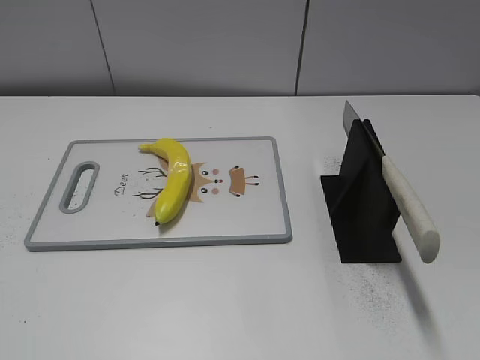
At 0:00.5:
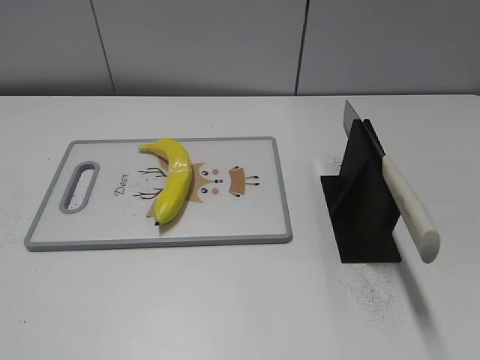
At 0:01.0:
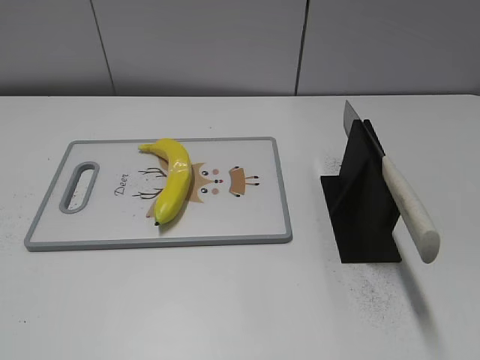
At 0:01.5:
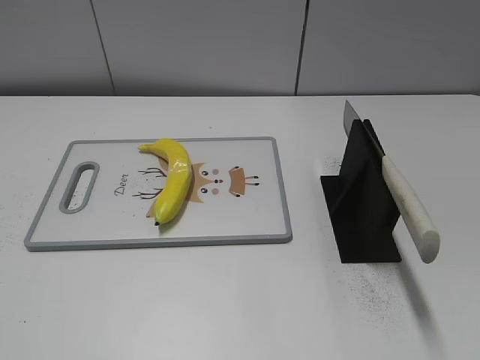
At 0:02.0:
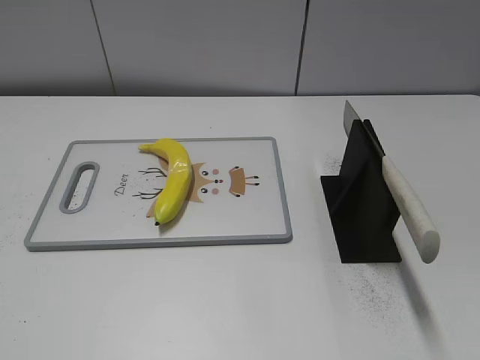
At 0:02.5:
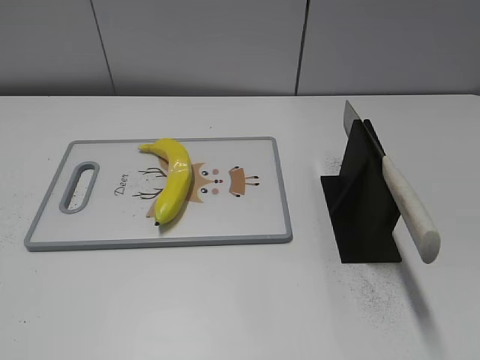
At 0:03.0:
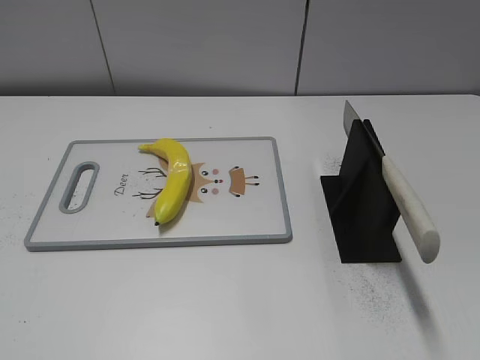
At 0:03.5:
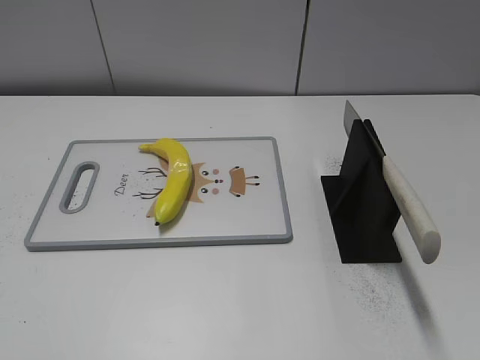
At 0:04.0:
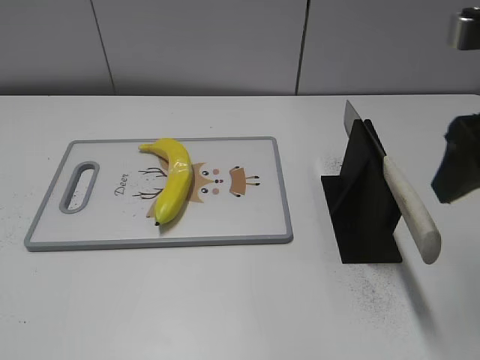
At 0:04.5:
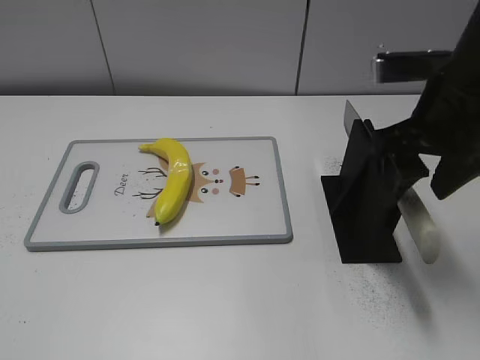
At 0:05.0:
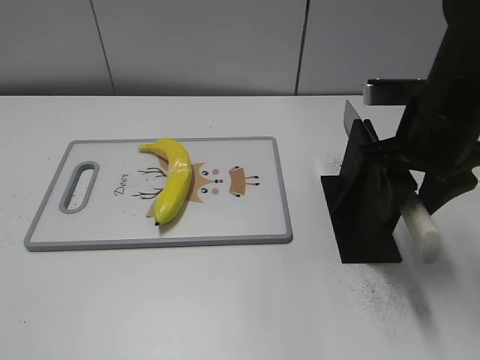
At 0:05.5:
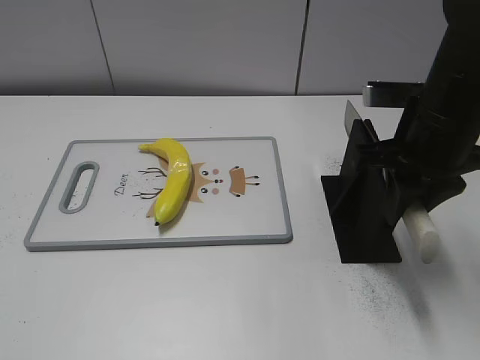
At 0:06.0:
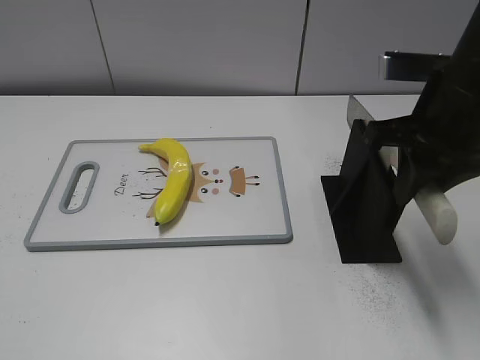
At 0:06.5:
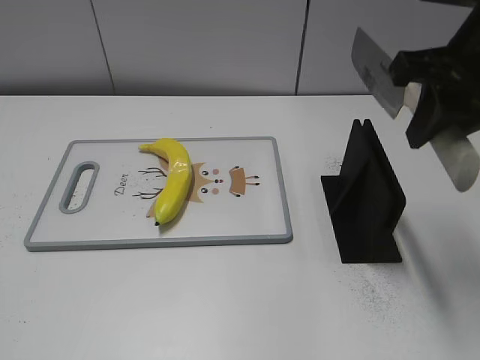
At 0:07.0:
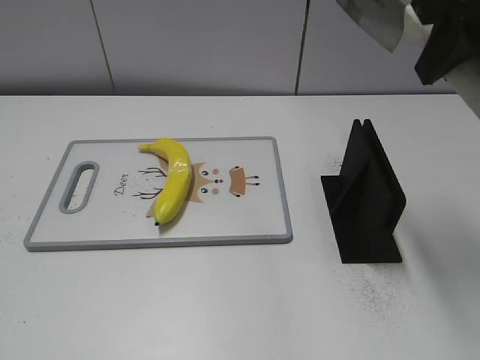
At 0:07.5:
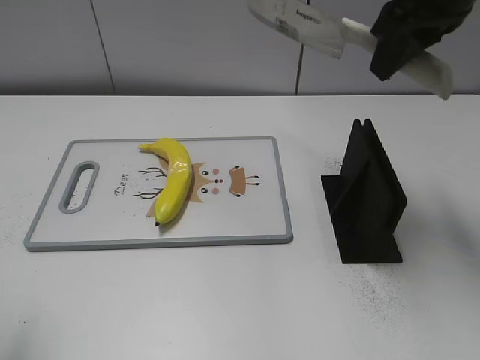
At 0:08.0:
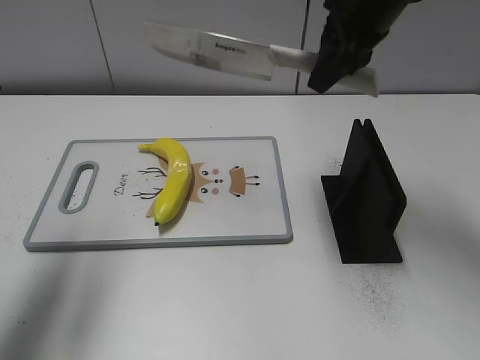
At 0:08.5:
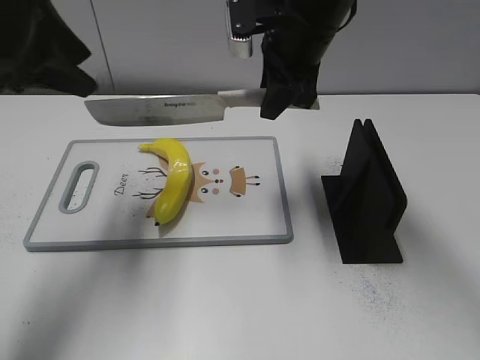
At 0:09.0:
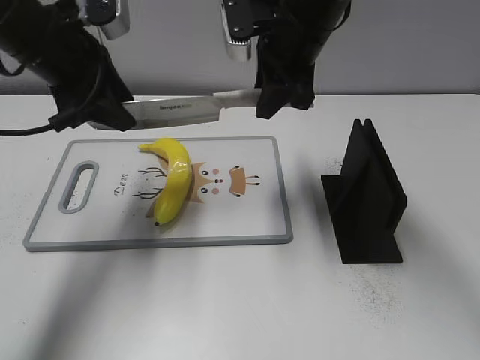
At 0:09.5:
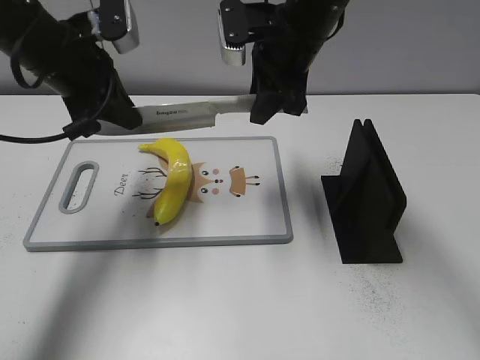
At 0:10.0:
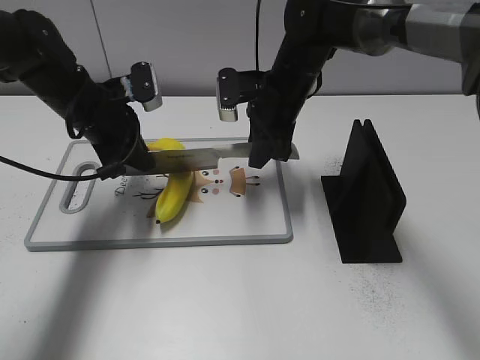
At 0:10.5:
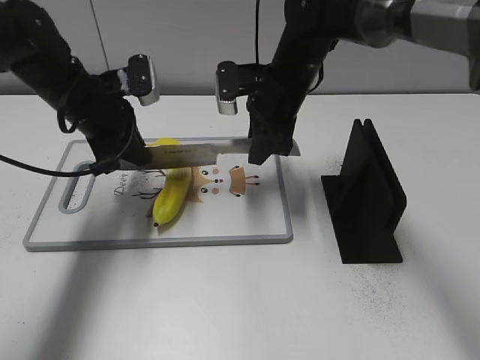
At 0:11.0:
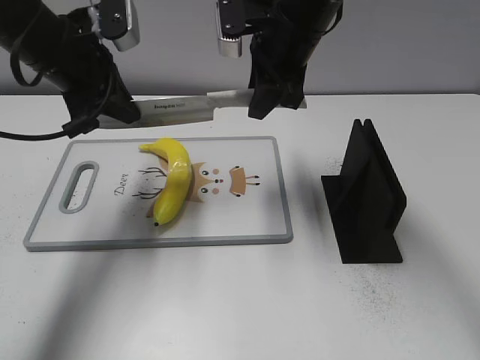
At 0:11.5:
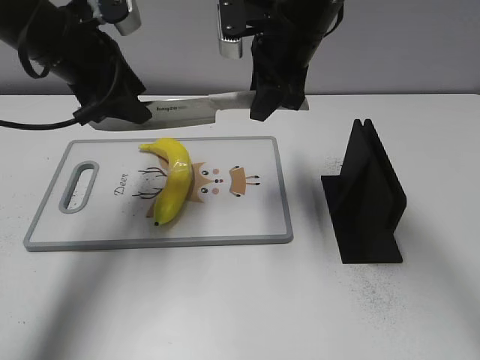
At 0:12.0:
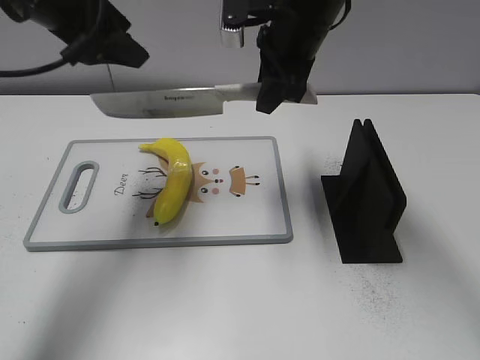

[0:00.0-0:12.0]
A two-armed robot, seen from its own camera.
Task of the whole recording: cut plastic banana.
Step, 0:00.0 to 0:07.0: Grab the knife handle with your right hand.
Step, 0:07.5 to 0:11.5: Lift the knife with your right hand.
0:02.0 to 0:04.0: The right gripper goes some 25 cm forward.
0:04.0 to 0:06.0: The right gripper heads forward, covering some 5 cm, and closes up.
0:06.0 to 0:08.0: The right gripper moves forward and to the left, roughly 10 cm, while the left gripper shifts approximately 25 cm forward.
0:08.0 to 0:10.0: The left gripper travels downward, forward and to the right by roughly 25 cm, and closes its fingers, while the right gripper is displaced downward and to the left by roughly 15 cm.
0:10.0 to 0:12.0: Both grippers move upward, approximately 15 cm. The left gripper opens.

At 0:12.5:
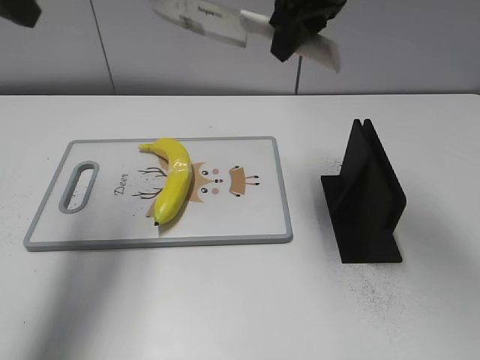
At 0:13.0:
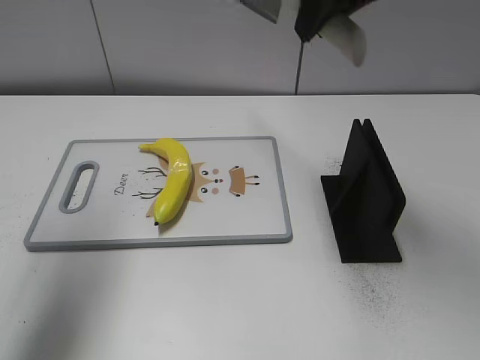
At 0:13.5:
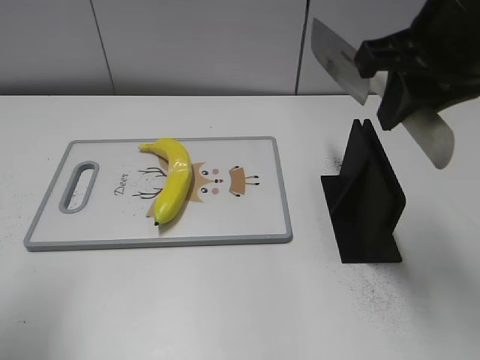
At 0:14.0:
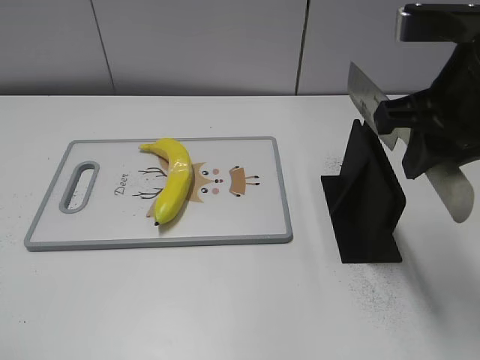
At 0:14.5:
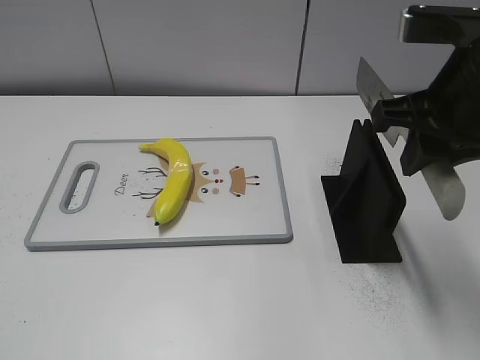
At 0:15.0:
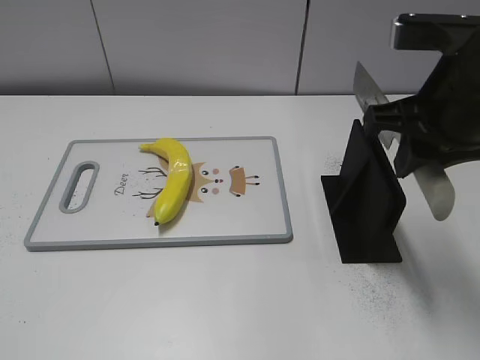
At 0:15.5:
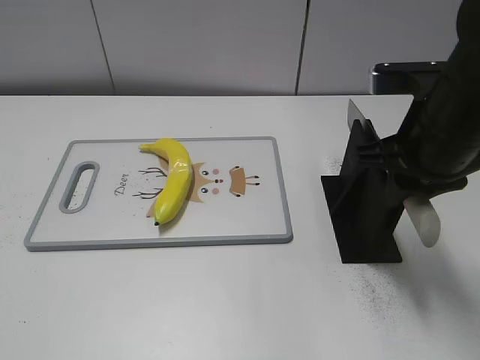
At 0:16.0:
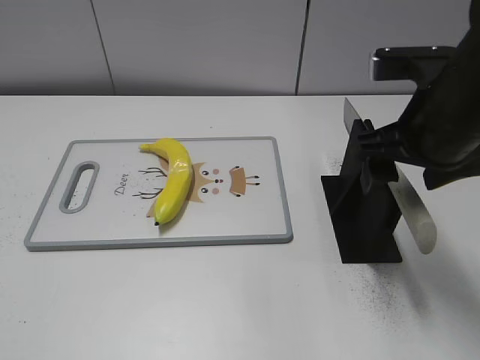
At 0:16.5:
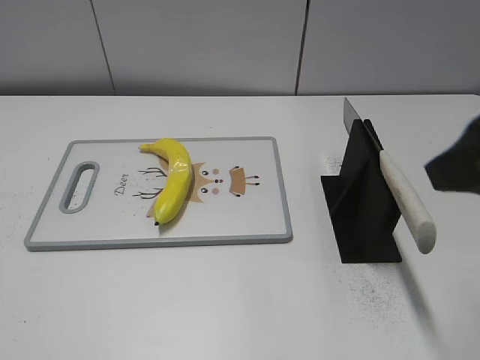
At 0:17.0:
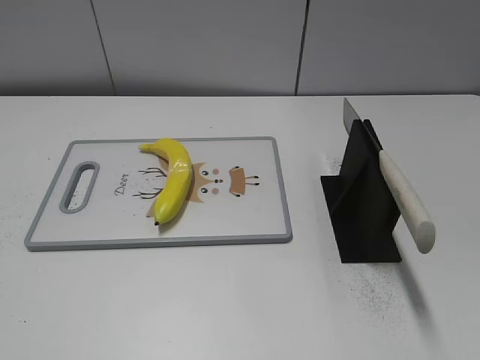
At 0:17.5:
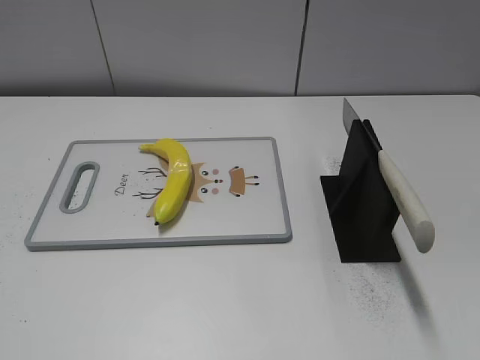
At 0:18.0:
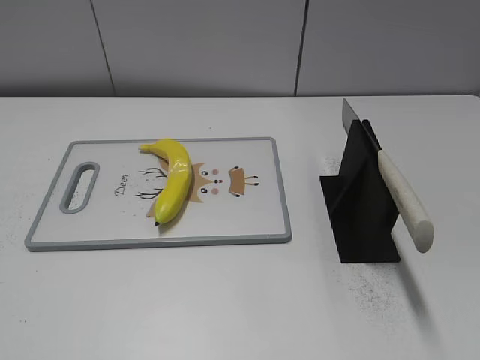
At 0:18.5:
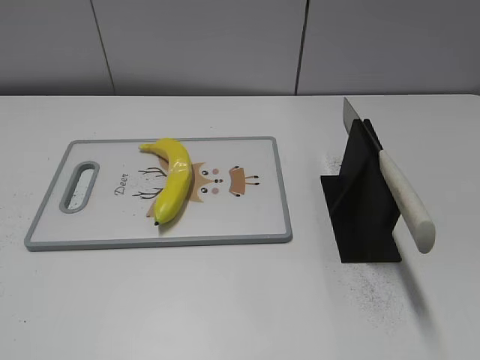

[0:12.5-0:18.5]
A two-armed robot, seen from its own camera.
Task of the whole recording: cut plastic banana.
Step, 0:13.5 to 0:14.0: Lift the knife with your right hand.
Step, 0:14.5 to 0:18.5: Place the knife on the storage rack with your right hand.
0:12.5 to 0:14.5: The left gripper is displaced backward by roughly 30 cm, while the right gripper shifts some 15 cm backward and to the right.
0:14.5 to 0:16.5: The right gripper heads backward, covering roughly 10 cm, and opens its fingers.
0:16.5 to 0:18.5: The right gripper travels backward and to the right by about 20 cm.

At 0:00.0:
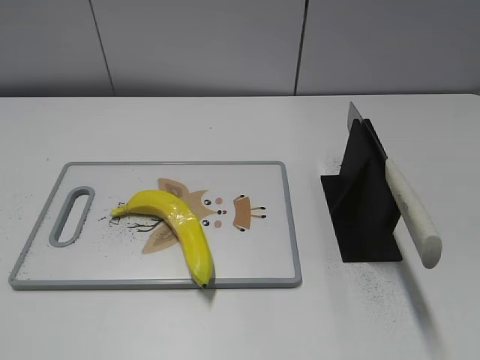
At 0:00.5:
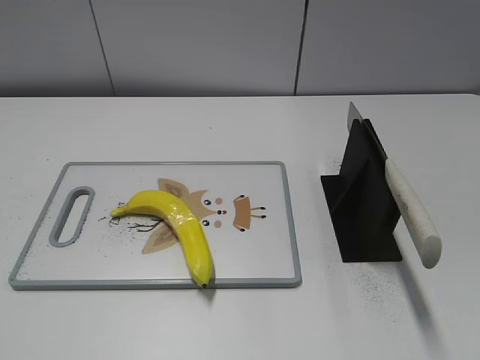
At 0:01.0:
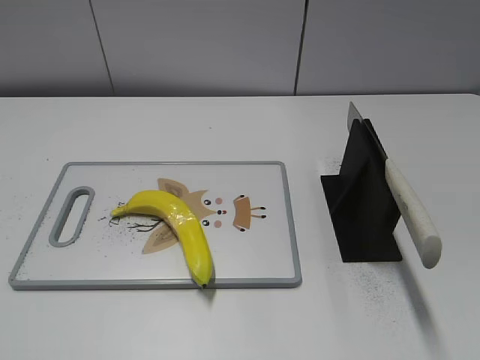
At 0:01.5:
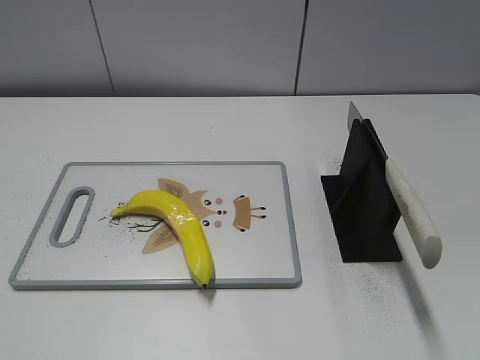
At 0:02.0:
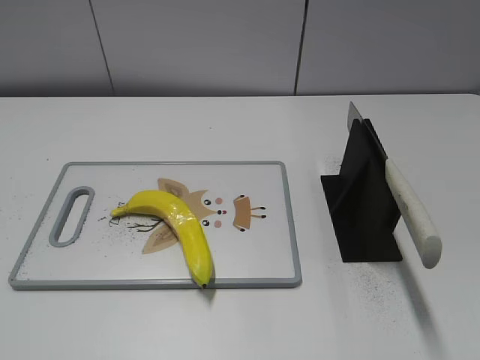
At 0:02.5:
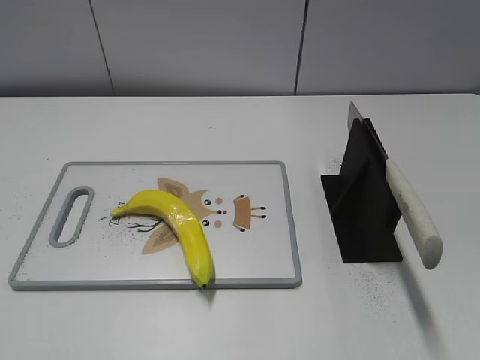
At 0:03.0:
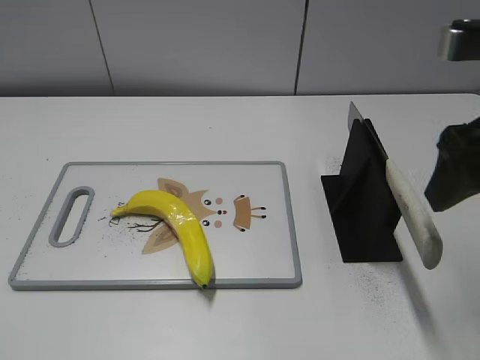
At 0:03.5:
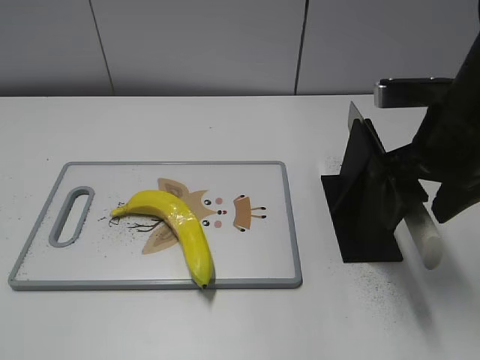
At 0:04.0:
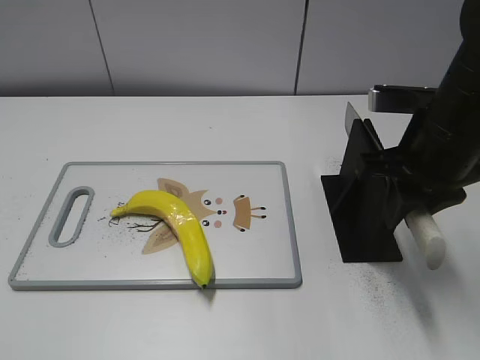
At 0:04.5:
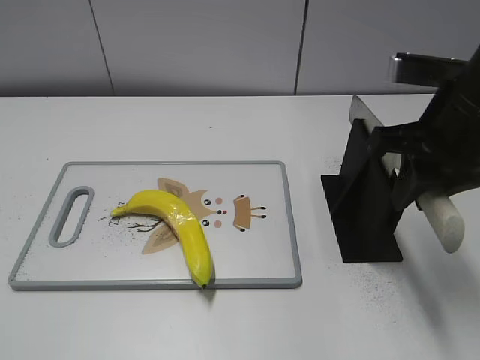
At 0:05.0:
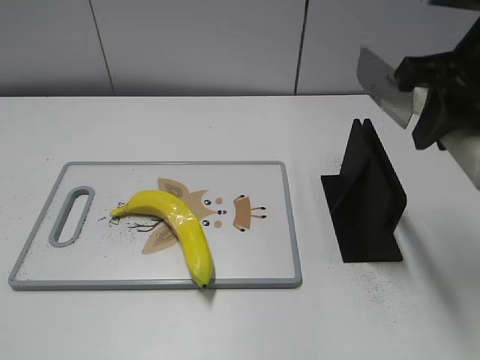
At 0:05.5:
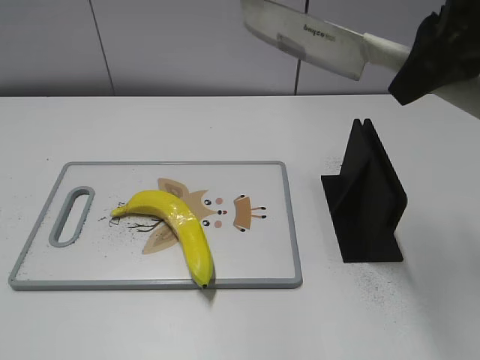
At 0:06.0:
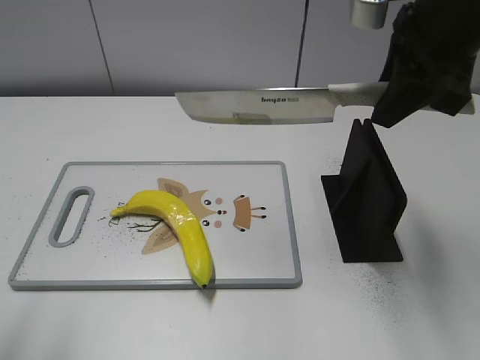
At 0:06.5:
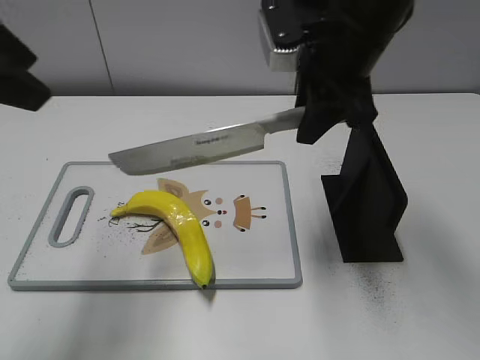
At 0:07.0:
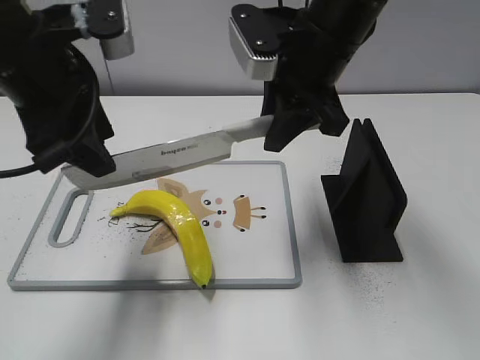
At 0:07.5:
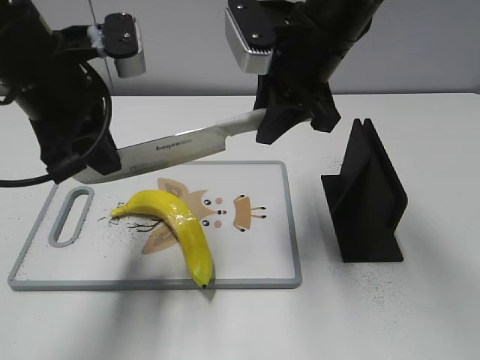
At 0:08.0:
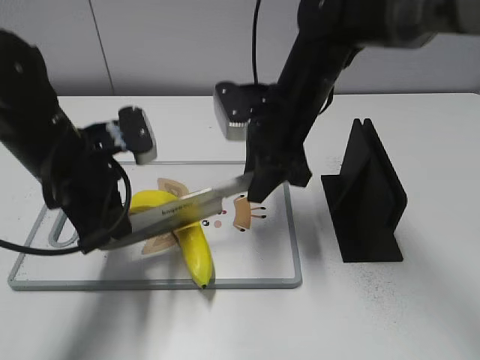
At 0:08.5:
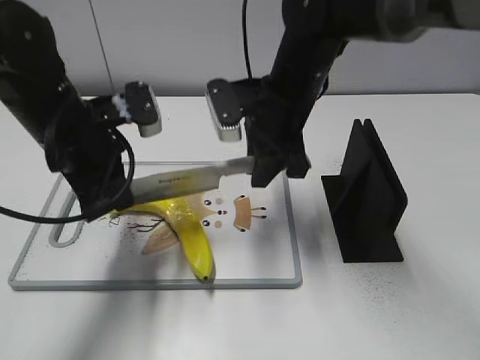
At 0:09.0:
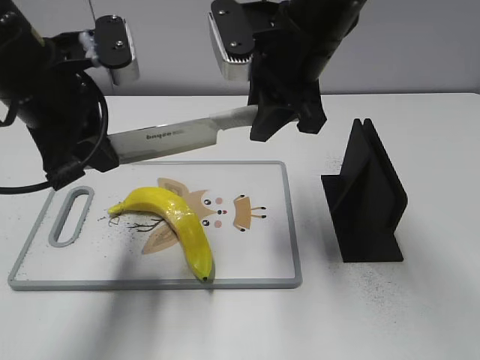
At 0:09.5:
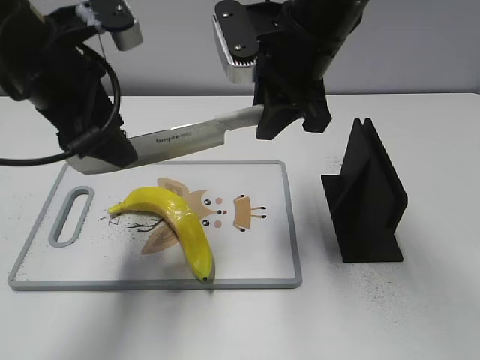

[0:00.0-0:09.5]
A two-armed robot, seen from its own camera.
Task of the whole recording: cut plastic banana.
Step, 0:00.0 to 0:04.5: Grab the knife handle with your right hand.
Step, 0:05.0 to 0:09.0: Lift the knife with your right hand.
0:02.0 to 0:04.0: The right gripper shifts some 25 cm forward, downward and to the left, and closes.
0:04.0 to 0:05.5: The right gripper moves upward, some 15 cm.
0:05.5 to 0:07.5: The right gripper is displaced to the left, downward and forward by about 15 cm. Meanwhile the left gripper goes roughly 30 cm forward and to the right, and closes.
0:07.5 to 0:09.5: The left gripper travels downward and back again, about 10 cm each way, and opens. The right gripper travels downward and back again, roughly 10 cm each way.
